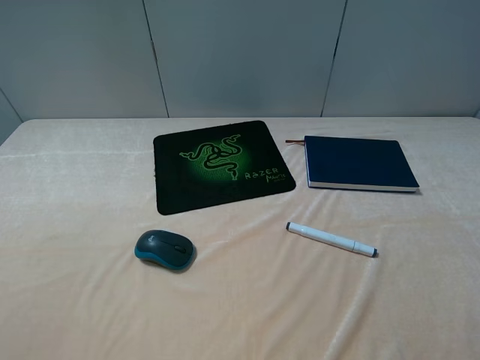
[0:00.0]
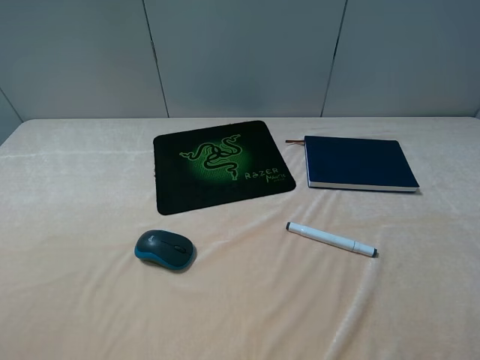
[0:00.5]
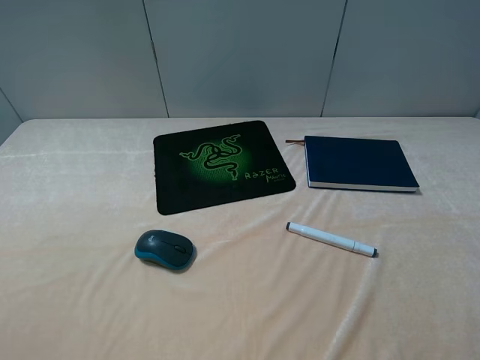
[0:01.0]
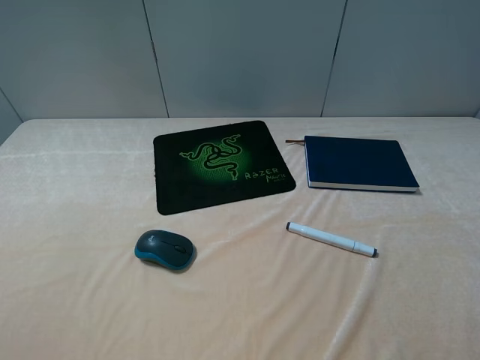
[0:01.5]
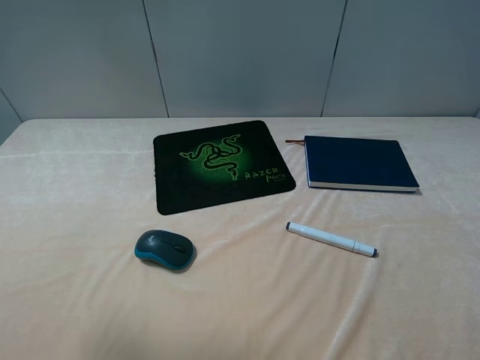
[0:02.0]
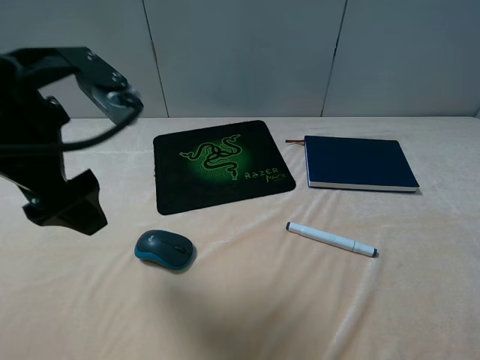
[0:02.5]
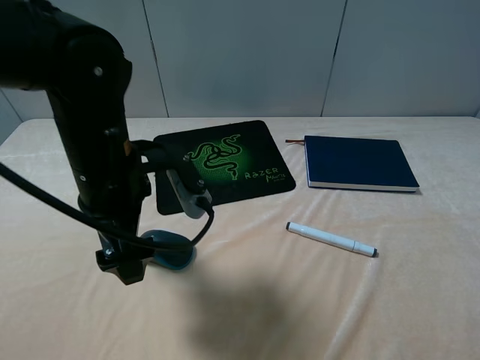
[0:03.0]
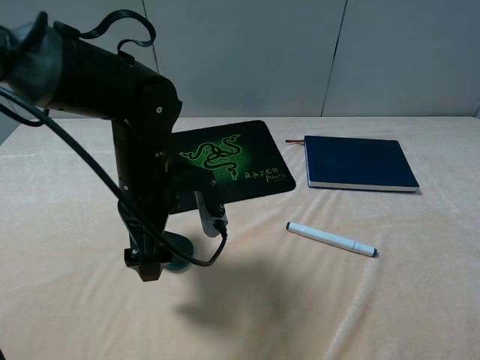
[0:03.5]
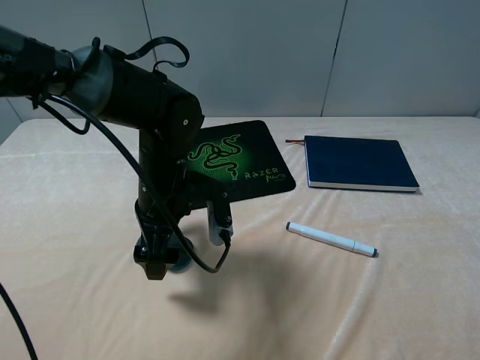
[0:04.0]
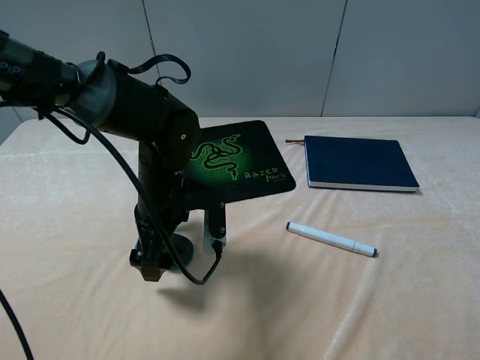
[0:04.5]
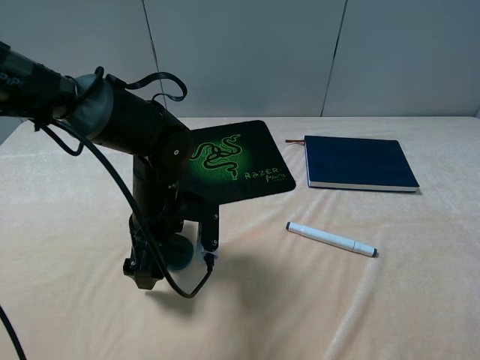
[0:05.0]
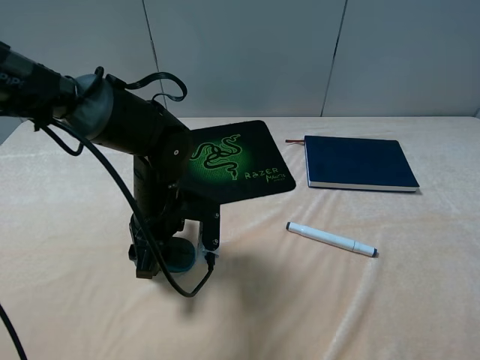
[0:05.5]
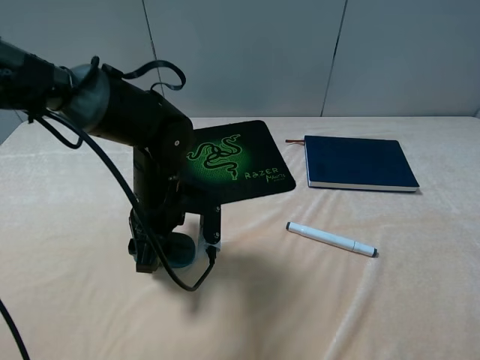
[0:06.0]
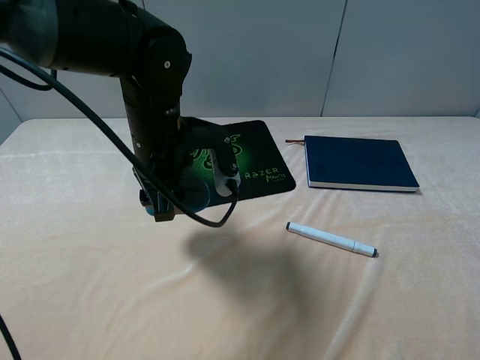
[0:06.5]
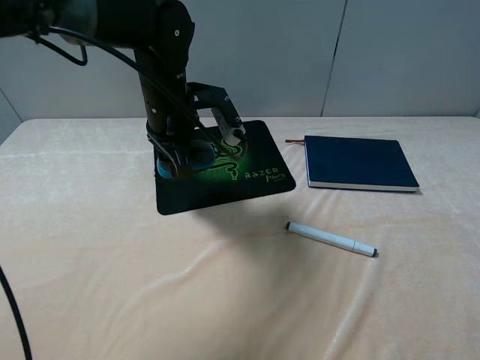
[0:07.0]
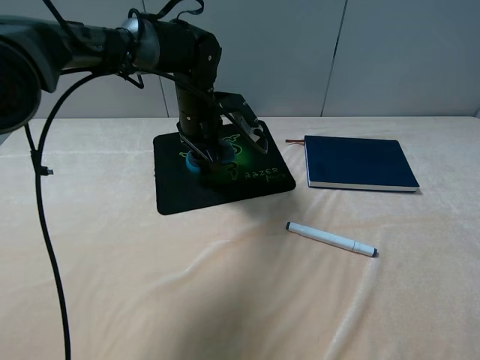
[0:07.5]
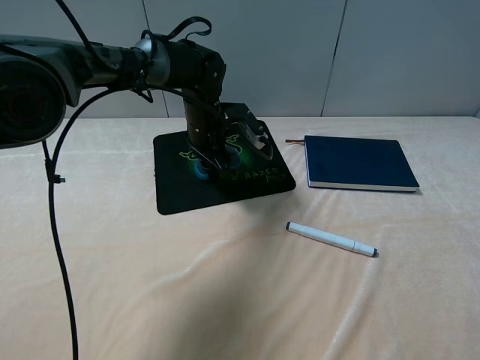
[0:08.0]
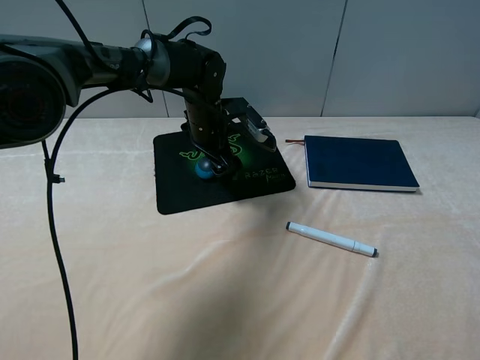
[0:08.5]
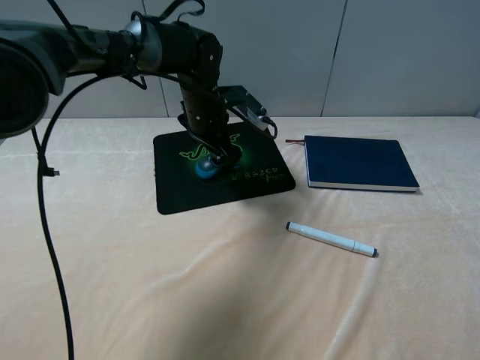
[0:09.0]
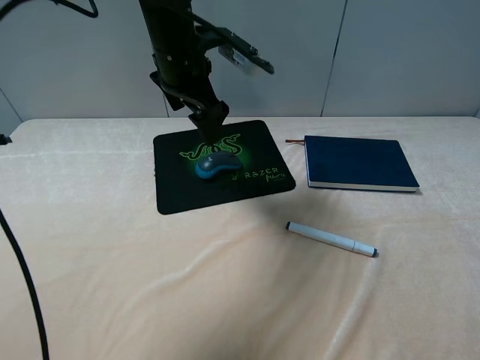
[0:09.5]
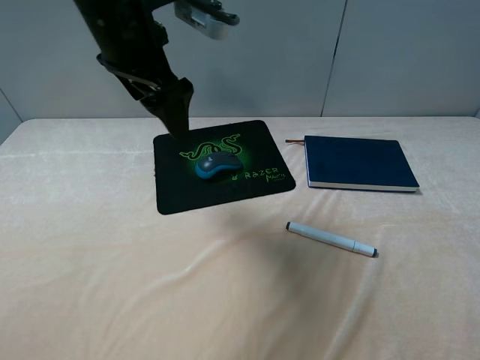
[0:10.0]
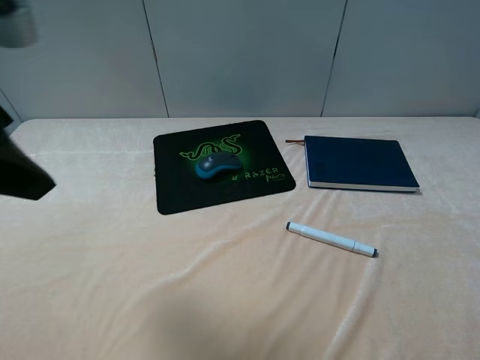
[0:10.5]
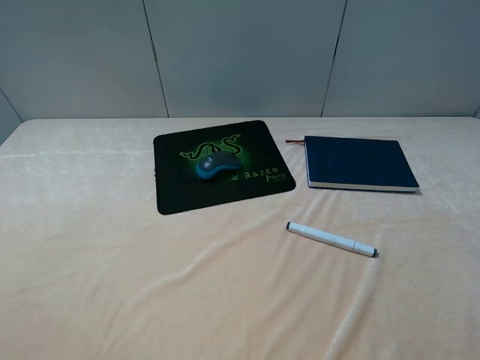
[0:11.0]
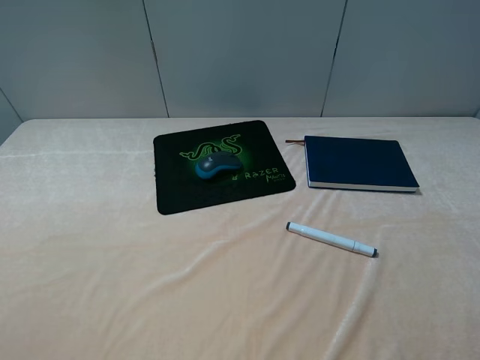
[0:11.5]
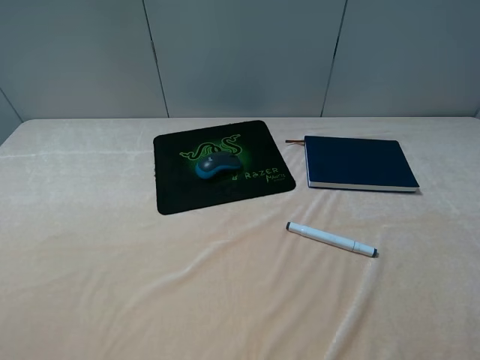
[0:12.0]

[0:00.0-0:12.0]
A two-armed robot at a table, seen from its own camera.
Step, 0:00.0 to 0:05.5: Grasp the mouse with the left gripper.
Step, 0:06.0 to 0:09.5: Place the mouse on the mouse pad with the left gripper.
0:00.0 to 0:02.0: The left gripper heads forward and upward, covering about 15 cm.
0:02.0 to 0:04.0: The left gripper is displaced downward, to the right and forward by approximately 35 cm.
0:04.0 to 0:06.0: The left gripper closes up.
0:06.0 to 0:08.0: The left gripper travels forward by some 15 cm.
0:08.0 to 0:10.0: The left gripper goes about 25 cm upward and backward, and opens up.
0:10.0 to 0:12.0: The left gripper shifts roughly 35 cm backward and to the left.

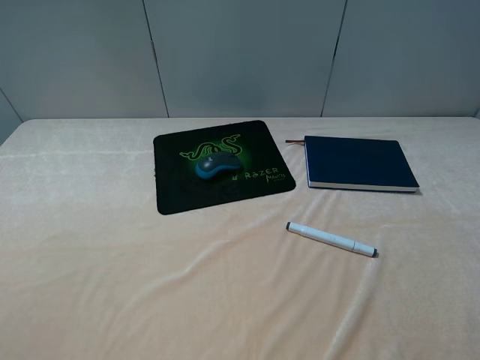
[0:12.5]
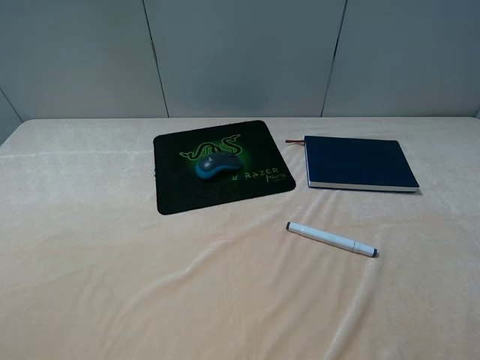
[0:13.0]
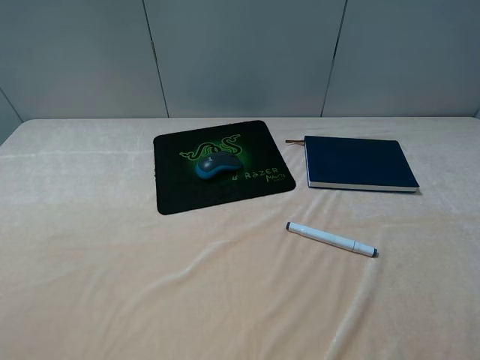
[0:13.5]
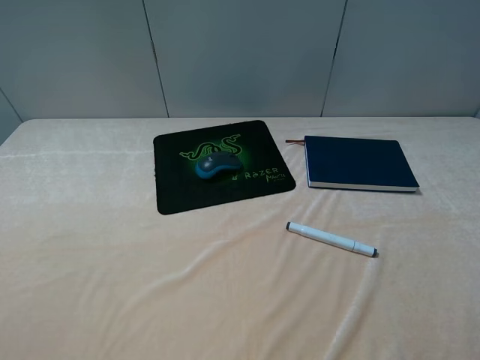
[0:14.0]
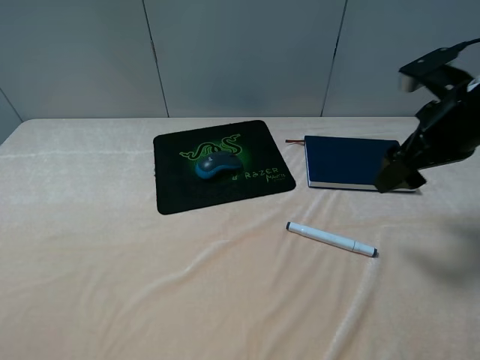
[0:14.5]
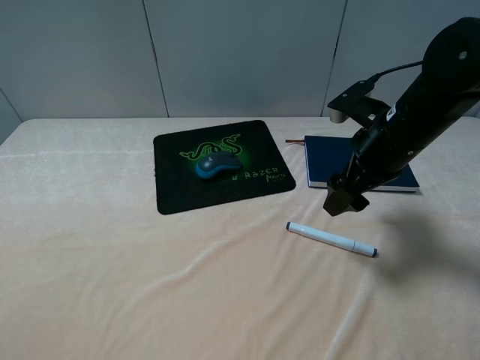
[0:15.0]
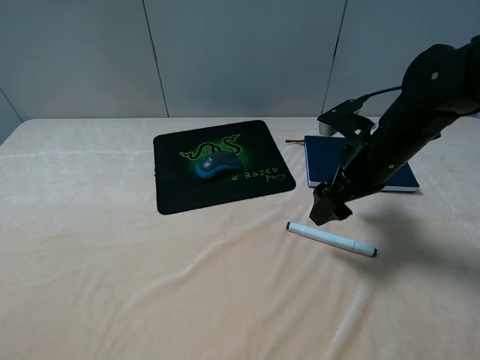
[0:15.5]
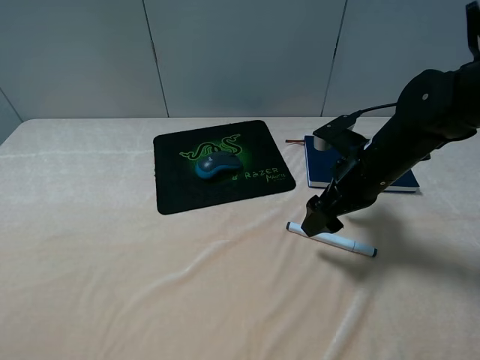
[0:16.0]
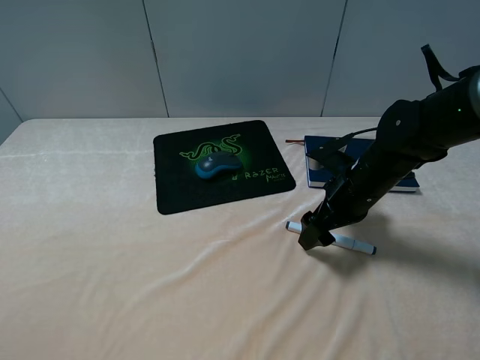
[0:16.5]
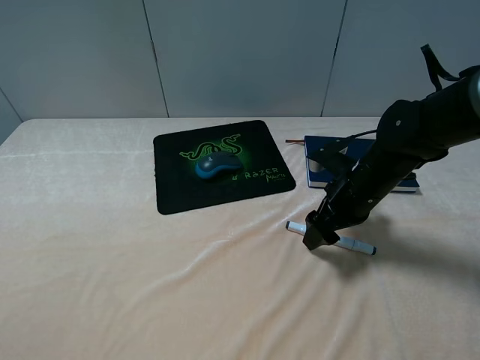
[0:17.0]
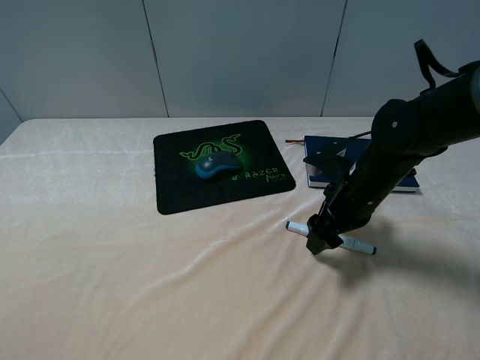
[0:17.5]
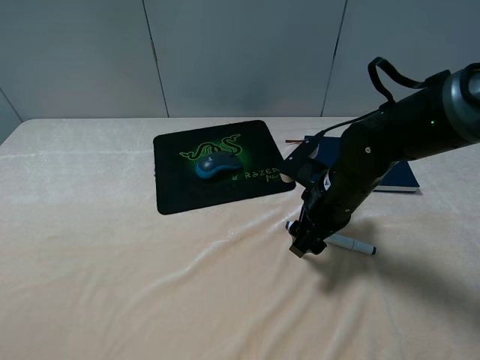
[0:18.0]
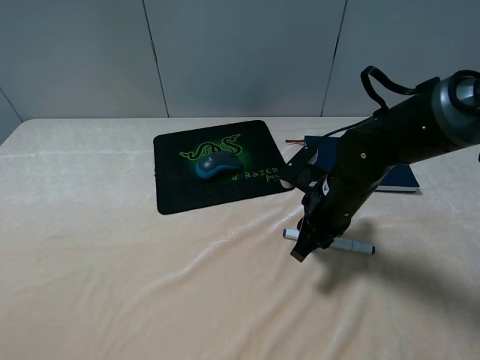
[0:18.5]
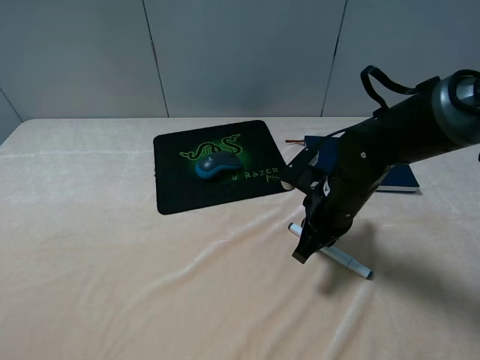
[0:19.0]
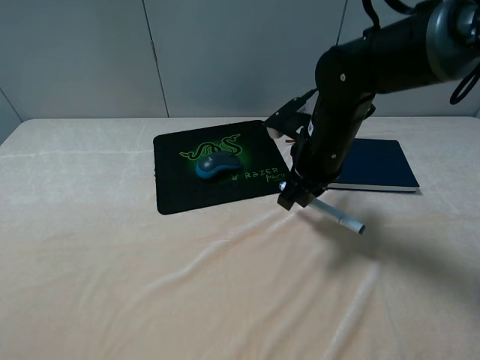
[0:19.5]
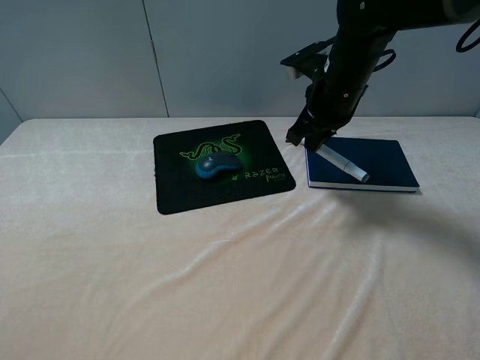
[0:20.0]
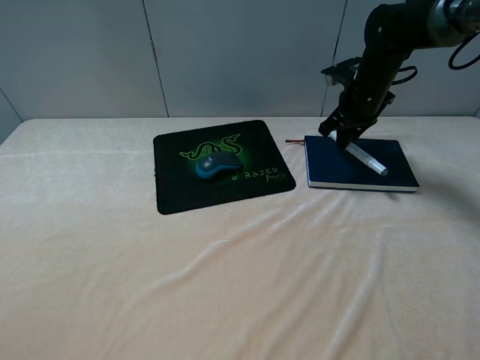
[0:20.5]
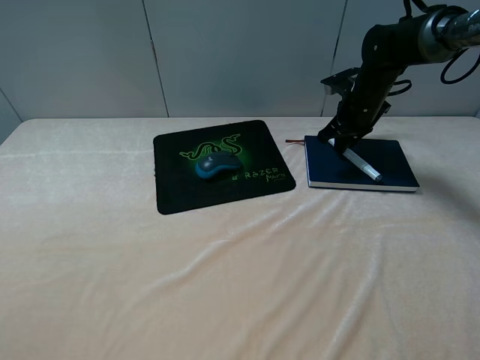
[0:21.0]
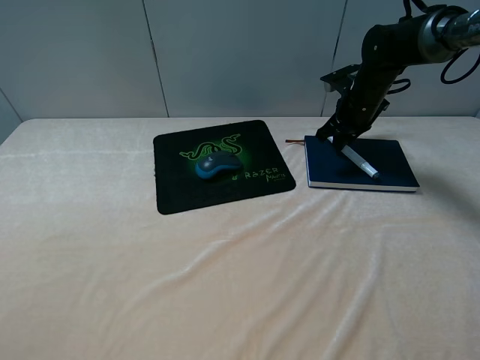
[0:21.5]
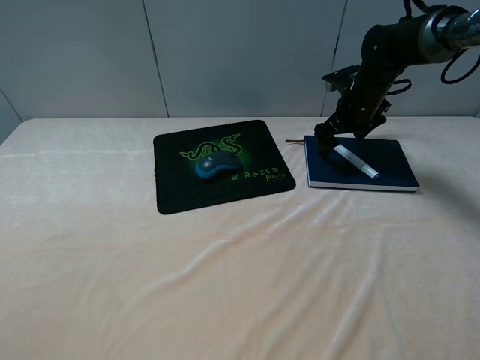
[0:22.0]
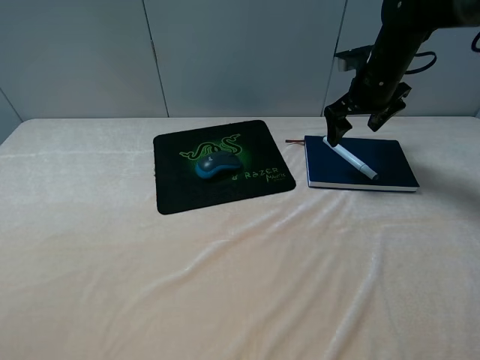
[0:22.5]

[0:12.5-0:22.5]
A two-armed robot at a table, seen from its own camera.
Step, 0:12.5 to 0:18.5: Grasp the marker with the right gripper.
Step, 0:19.0 to 0:22.0: Place the marker on the notebook with the right gripper.
0:12.5 to 0:14.5: The right gripper moves forward, some 25 cm.
0:14.5 to 0:16.5: The right gripper is displaced downward and to the left by approximately 15 cm.
0:16.5 to 0:18.5: The right gripper closes its fingers.
0:18.5 to 0:20.5: The right gripper shifts about 20 cm forward and to the right.
0:20.5 to 0:22.5: The right gripper opens up.

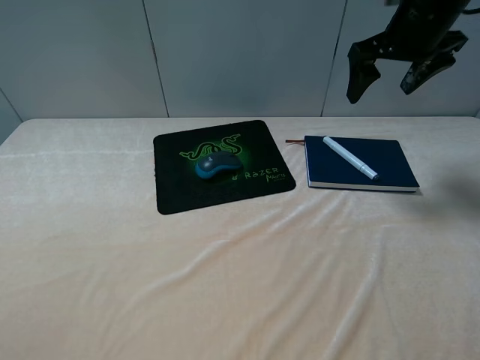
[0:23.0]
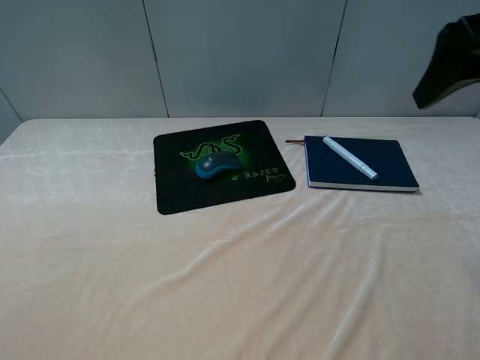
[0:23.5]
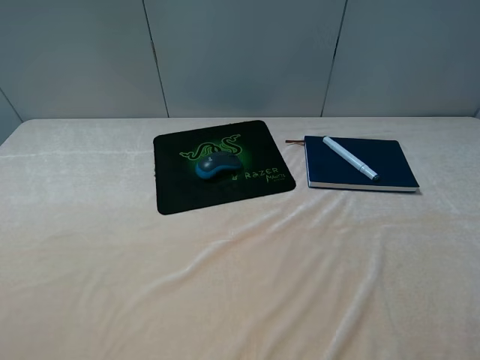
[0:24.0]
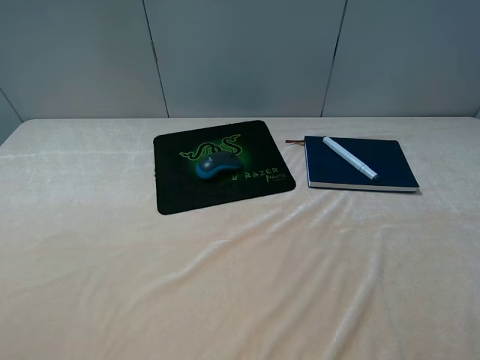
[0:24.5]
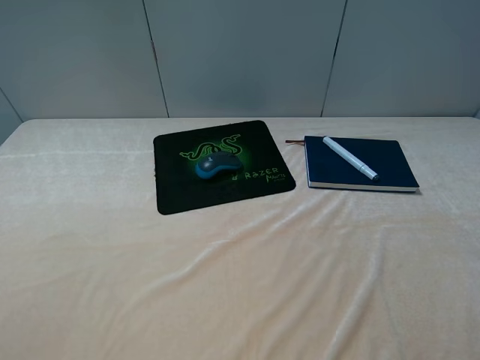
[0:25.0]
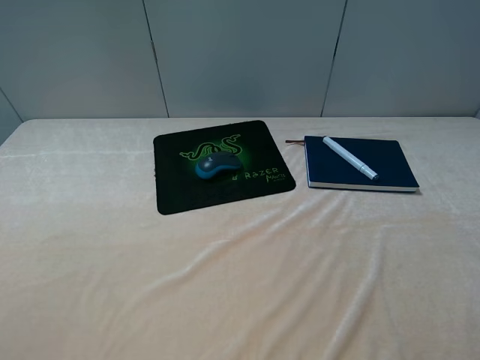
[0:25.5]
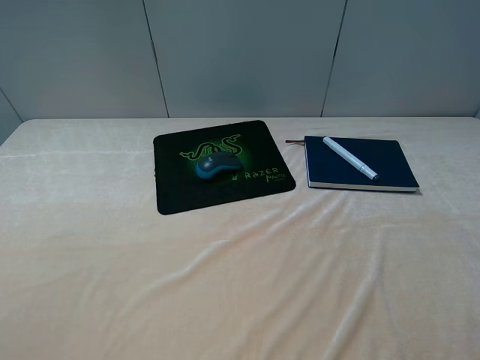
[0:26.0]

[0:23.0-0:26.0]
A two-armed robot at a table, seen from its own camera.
0:23.0 to 0:24.5: The right gripper heads backward, covering some 35 cm.
